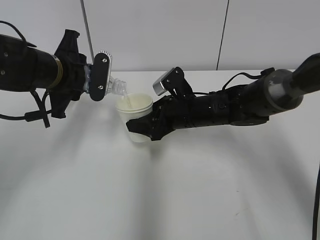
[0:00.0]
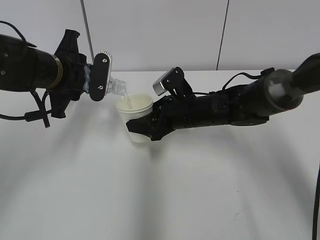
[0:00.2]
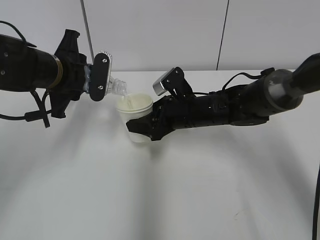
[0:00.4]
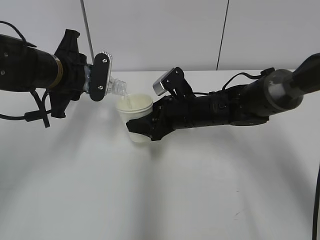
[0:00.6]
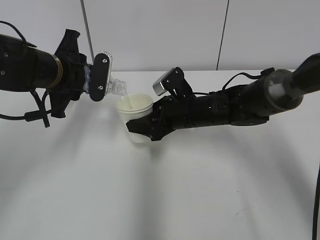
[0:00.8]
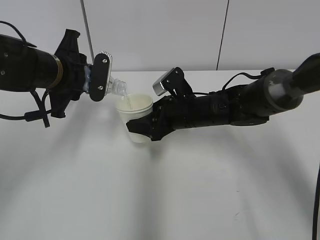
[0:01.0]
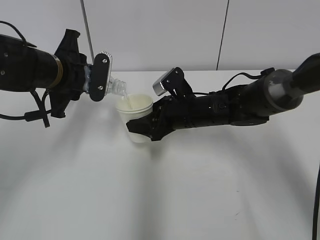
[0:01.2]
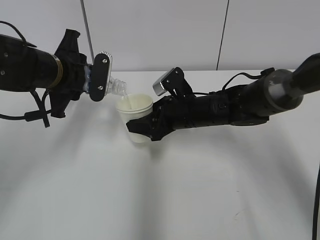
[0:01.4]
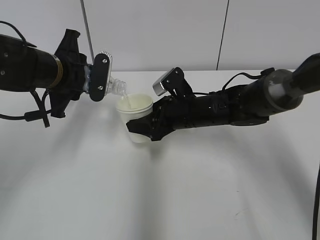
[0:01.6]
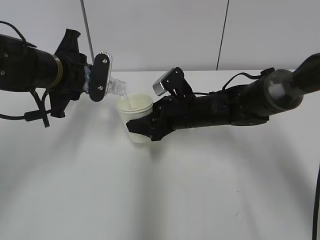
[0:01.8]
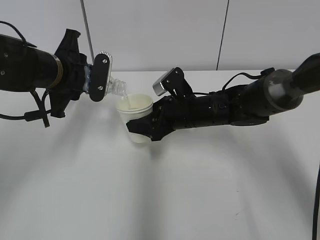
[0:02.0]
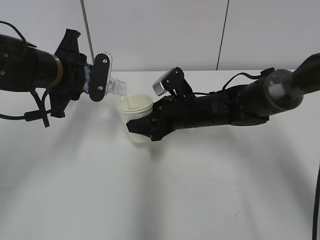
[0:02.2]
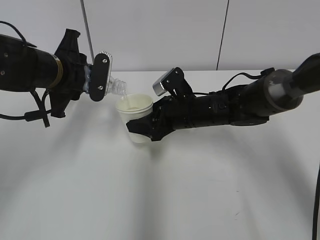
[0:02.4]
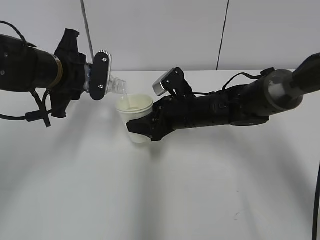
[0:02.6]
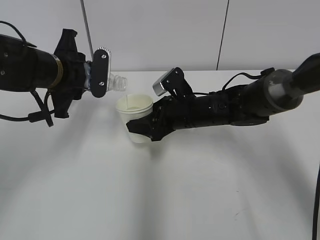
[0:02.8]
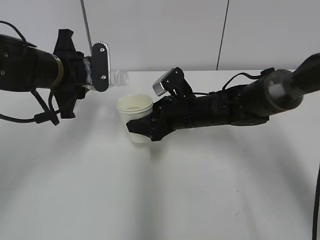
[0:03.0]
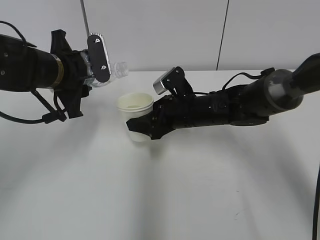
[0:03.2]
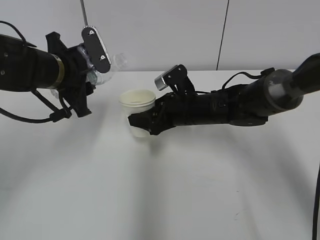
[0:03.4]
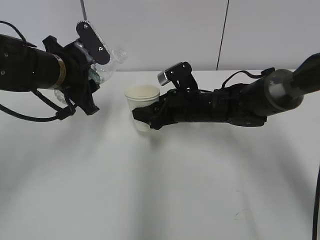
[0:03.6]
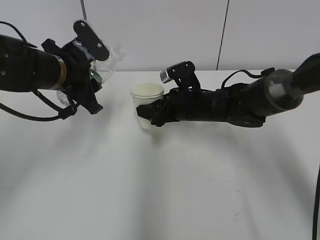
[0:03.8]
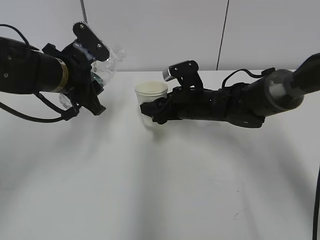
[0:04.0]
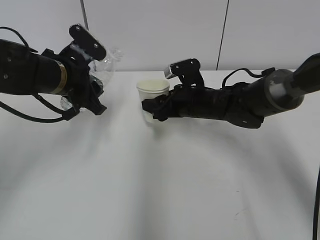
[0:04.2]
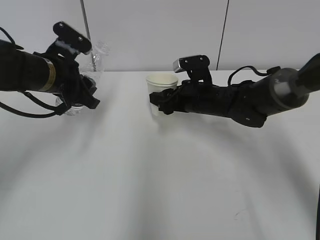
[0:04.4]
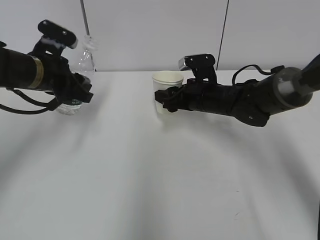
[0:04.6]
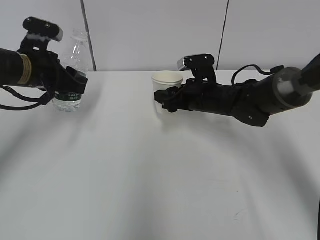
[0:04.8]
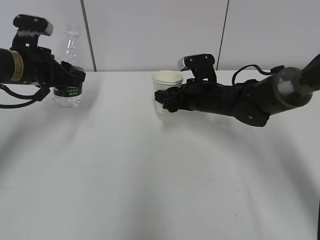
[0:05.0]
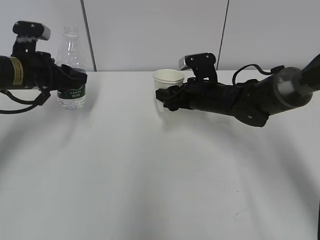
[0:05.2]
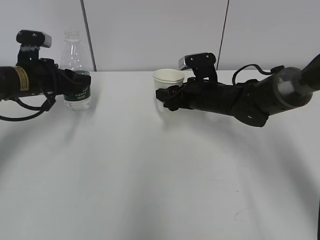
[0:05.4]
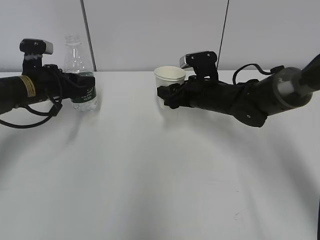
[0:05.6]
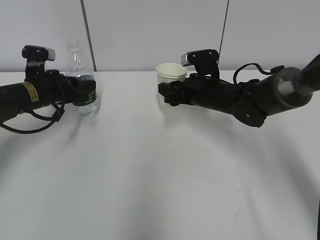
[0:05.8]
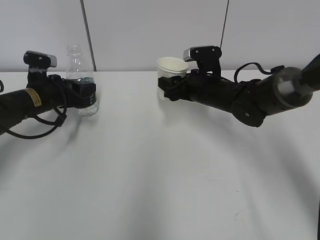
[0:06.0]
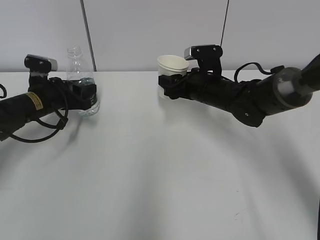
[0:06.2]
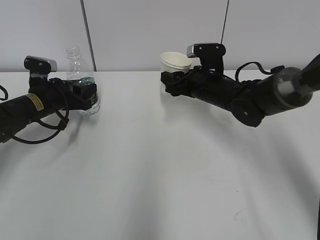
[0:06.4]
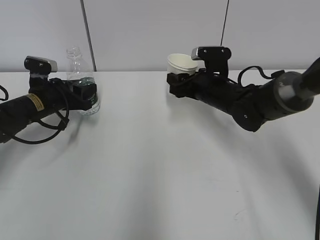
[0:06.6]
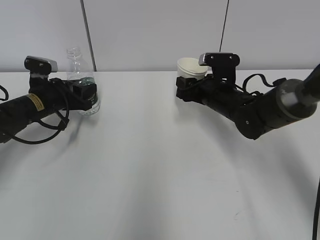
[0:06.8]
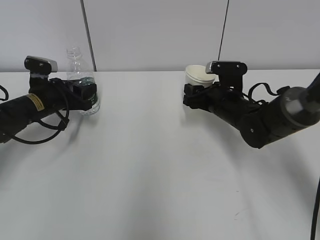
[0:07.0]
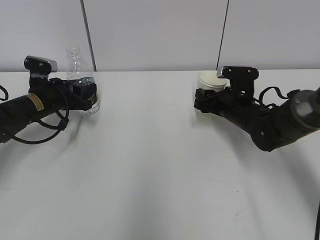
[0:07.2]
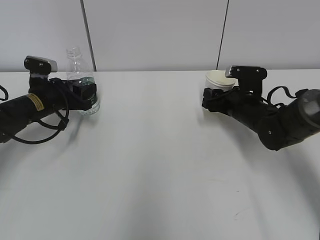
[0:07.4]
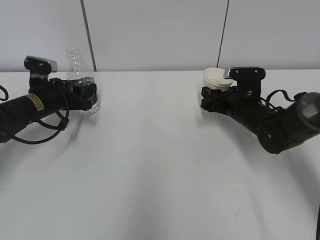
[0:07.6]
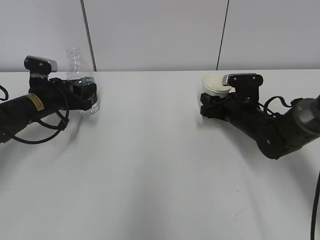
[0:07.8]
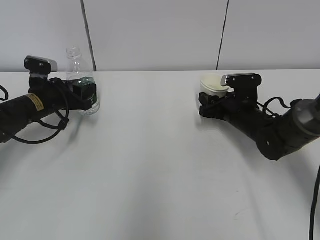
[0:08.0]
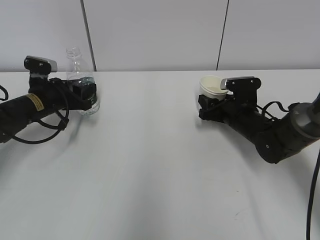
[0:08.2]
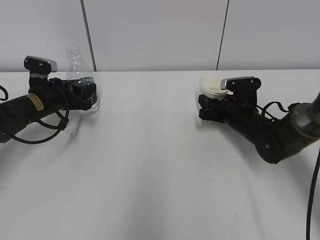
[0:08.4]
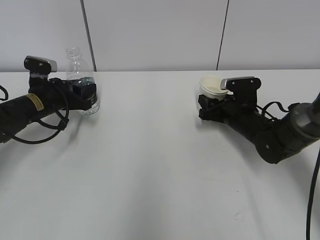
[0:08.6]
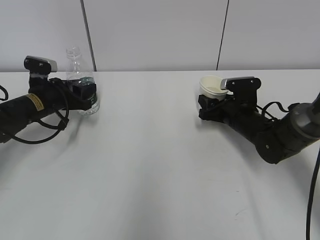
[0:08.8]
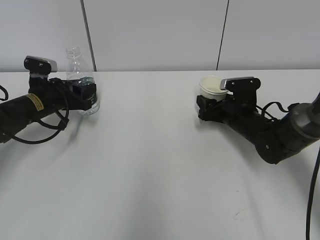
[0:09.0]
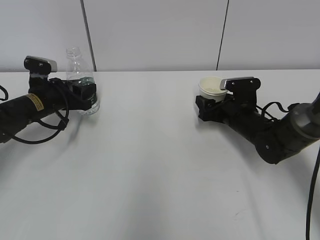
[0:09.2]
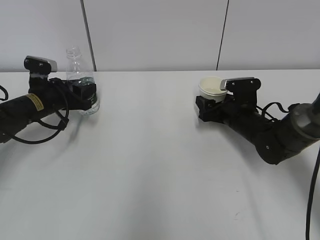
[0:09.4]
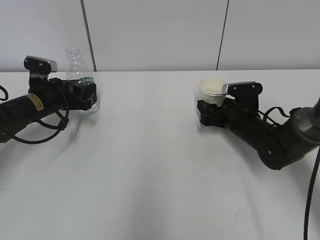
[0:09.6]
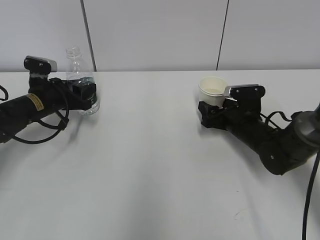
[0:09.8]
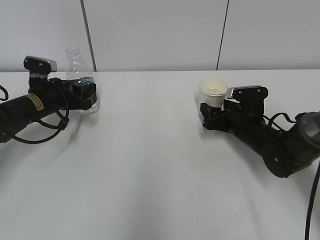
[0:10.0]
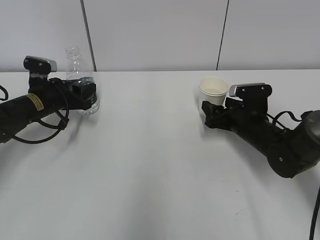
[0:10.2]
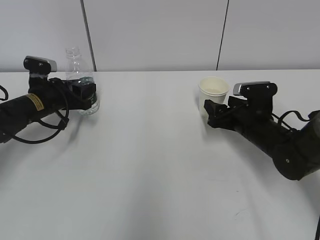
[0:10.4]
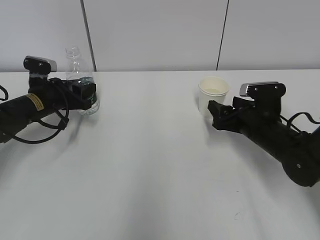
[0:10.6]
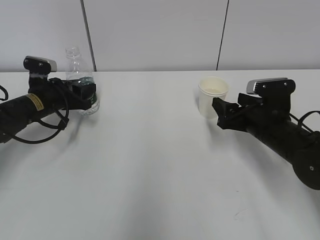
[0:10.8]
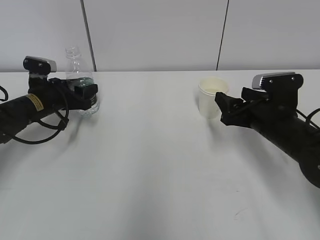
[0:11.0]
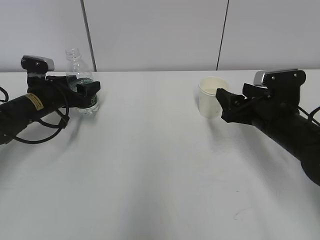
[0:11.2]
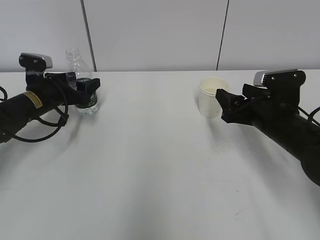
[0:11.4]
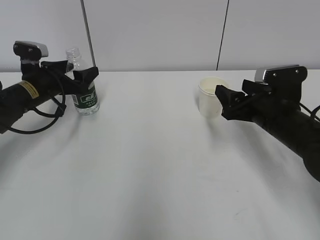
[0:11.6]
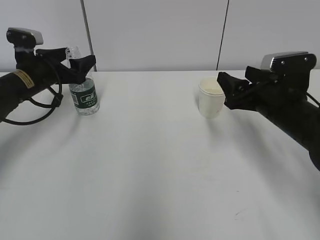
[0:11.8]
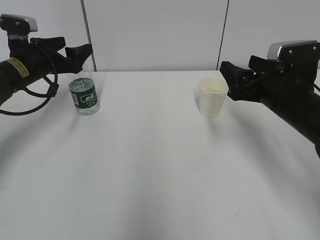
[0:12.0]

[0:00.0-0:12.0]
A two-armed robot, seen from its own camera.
Step, 0.4 to 3.8 s: Place the paper cup with the right hand.
Step, 4.0 to 5.2 s: Place the water bottle with the left hand.
0.0 to 1.6 s: Both grippers stay put.
1.6 to 3.0 s: The grippers stay close to where they were, moving slightly.
4.4 to 6.0 s: The left gripper shifts approximately 10 cm downward and to the left.
6.0 to 7.6 s: The right gripper is displaced to the right by some 5 cm.
7.6 to 9.0 s: The right gripper opens.
9.0 to 10.4 s: There are only small adjustments of the grippers.
10.4 to 12.0 s: The grippers both shift upward by approximately 10 cm. The left gripper opens.

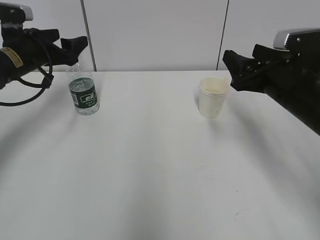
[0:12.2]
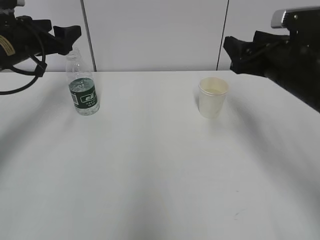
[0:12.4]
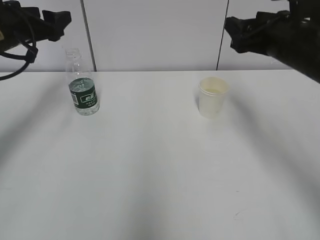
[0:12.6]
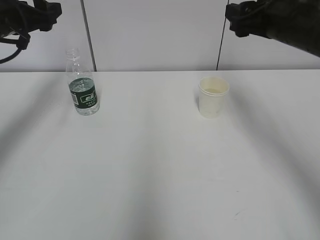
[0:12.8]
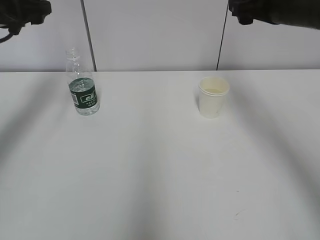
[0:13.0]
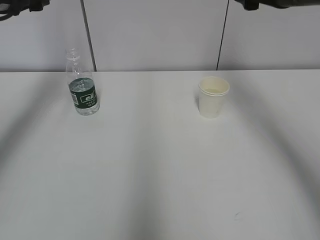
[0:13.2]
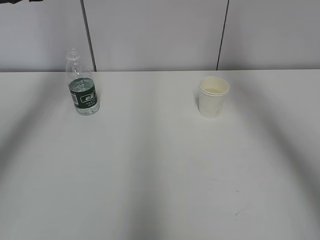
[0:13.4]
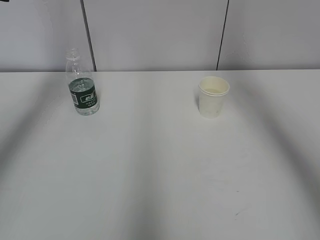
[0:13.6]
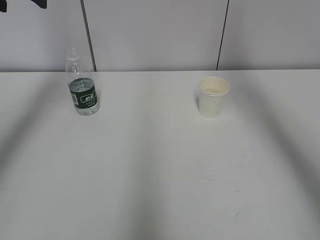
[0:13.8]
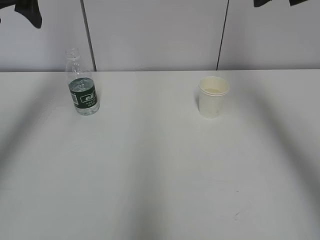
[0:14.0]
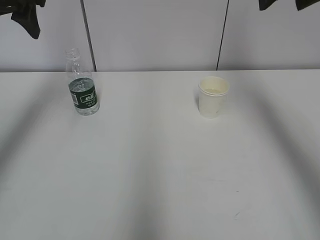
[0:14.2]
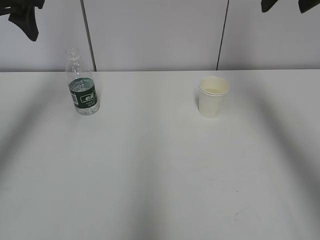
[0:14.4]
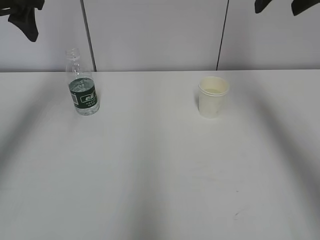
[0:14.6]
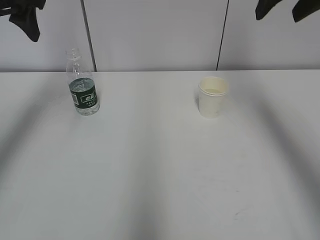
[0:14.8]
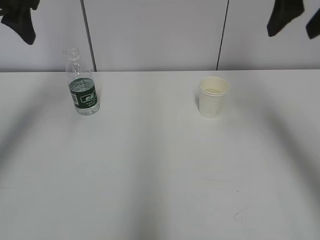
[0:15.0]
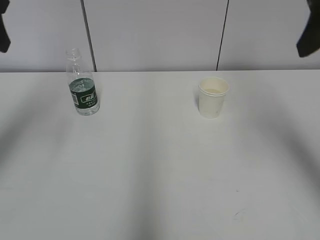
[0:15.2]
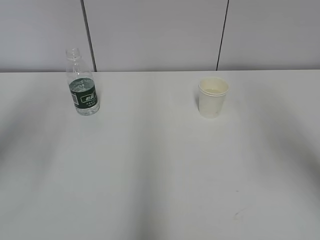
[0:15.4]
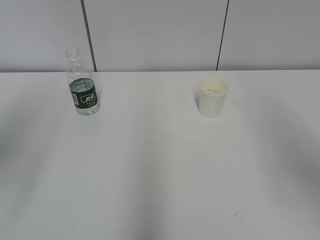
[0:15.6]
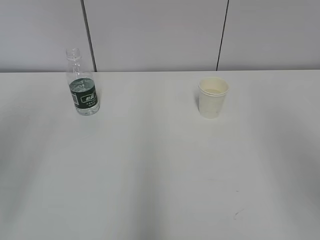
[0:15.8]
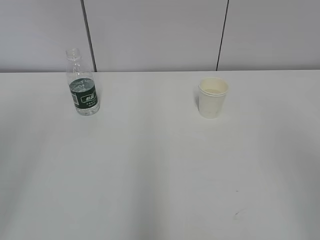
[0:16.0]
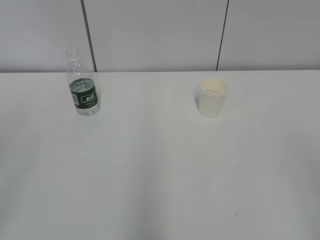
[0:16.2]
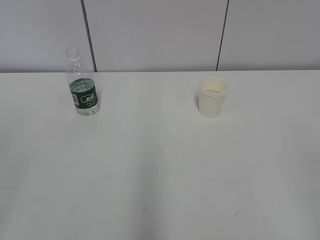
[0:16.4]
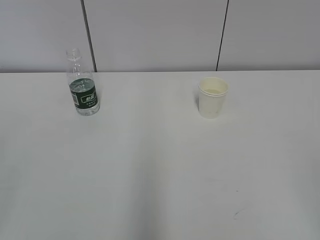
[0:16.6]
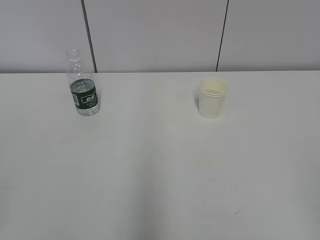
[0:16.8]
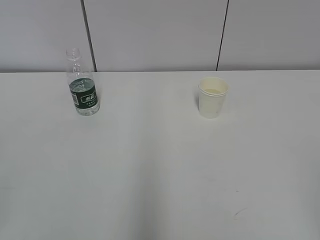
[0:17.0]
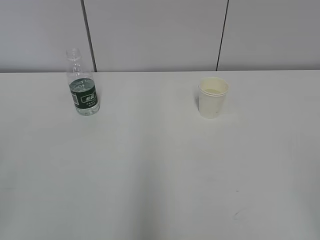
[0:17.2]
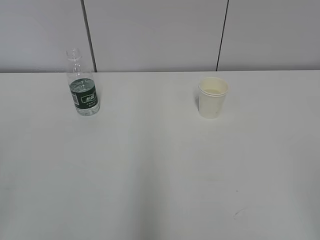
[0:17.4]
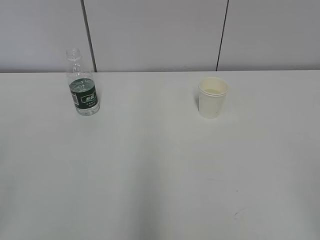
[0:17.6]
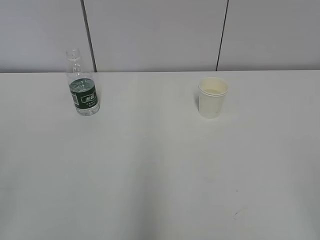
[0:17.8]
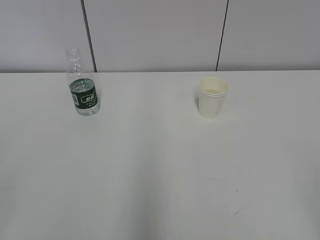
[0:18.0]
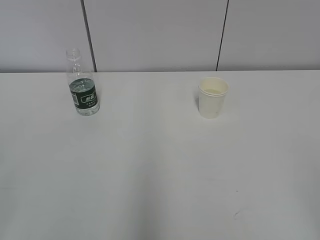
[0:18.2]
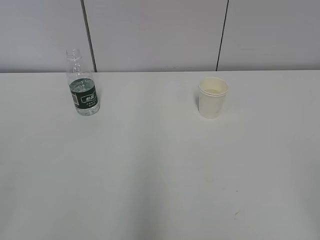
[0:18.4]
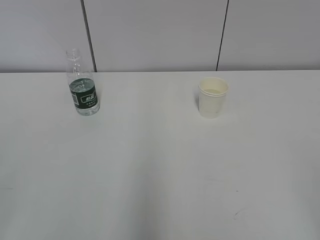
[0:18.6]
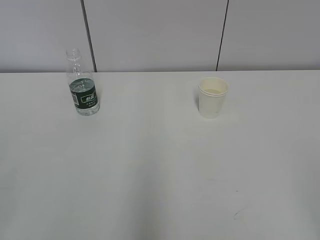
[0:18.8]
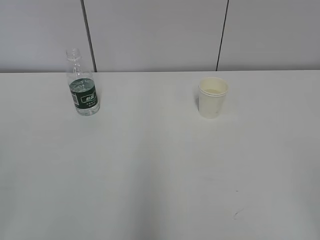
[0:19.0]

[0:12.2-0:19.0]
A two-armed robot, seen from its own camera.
12.2 to 13.6 s: Both grippers travel together upward, roughly 15 cm.
13.6 to 15.0 s: Both grippers move backward, about 5 cm.
15.0 to 16.2 s: Both grippers move backward, roughly 30 cm.

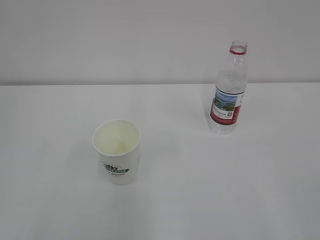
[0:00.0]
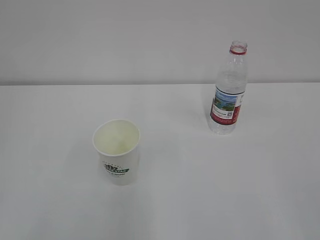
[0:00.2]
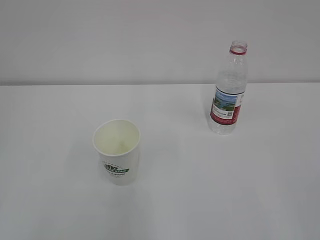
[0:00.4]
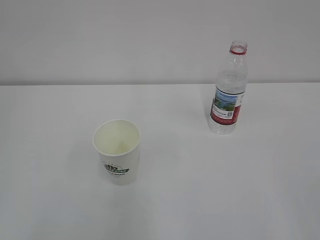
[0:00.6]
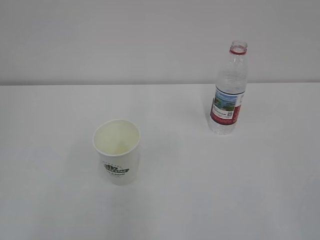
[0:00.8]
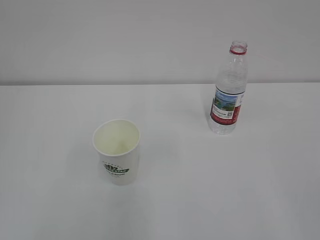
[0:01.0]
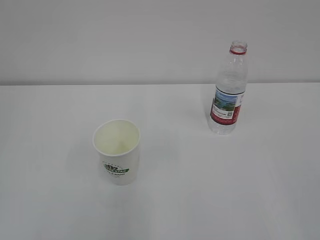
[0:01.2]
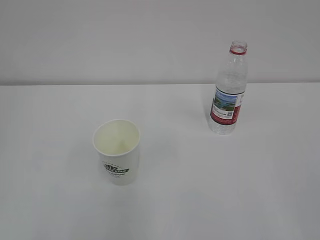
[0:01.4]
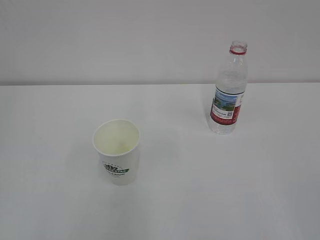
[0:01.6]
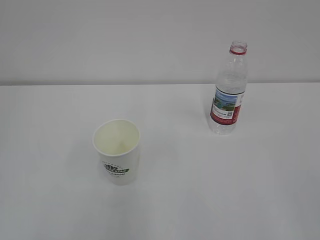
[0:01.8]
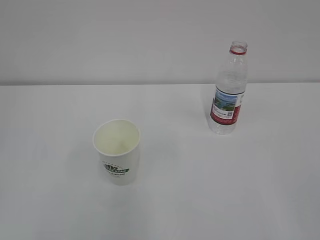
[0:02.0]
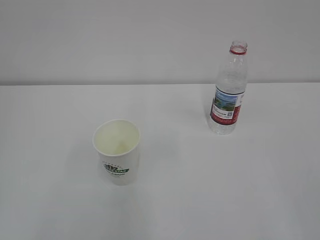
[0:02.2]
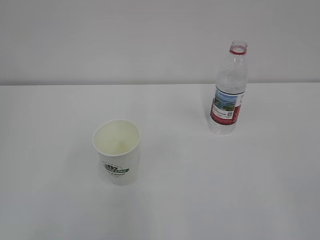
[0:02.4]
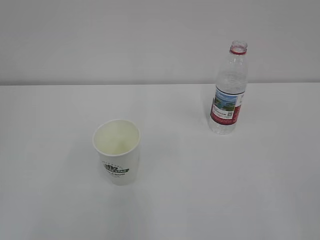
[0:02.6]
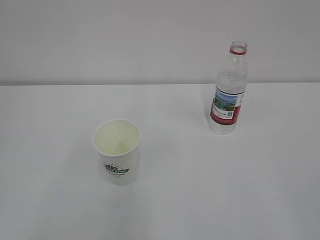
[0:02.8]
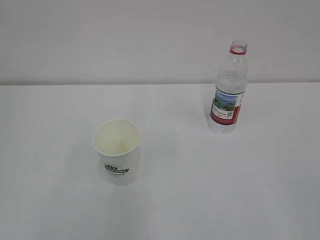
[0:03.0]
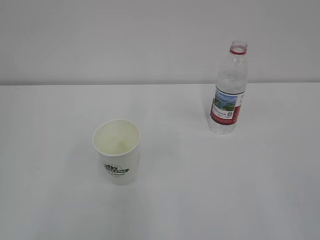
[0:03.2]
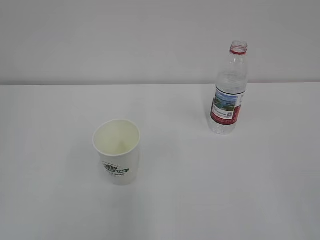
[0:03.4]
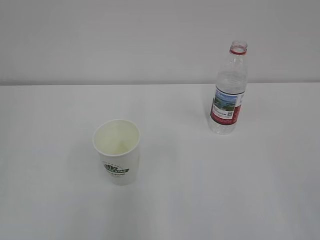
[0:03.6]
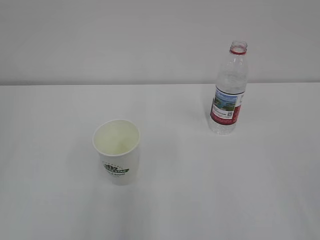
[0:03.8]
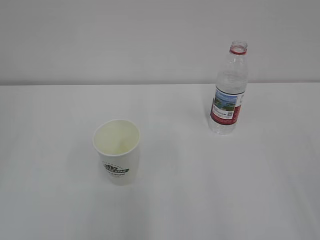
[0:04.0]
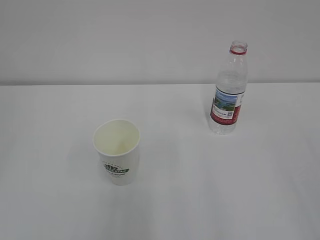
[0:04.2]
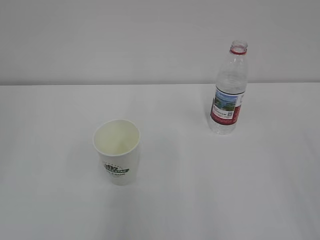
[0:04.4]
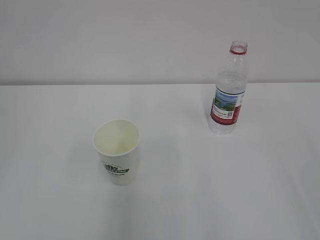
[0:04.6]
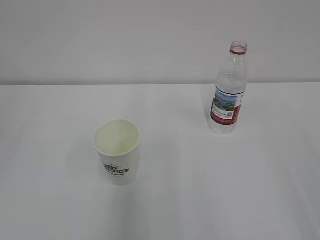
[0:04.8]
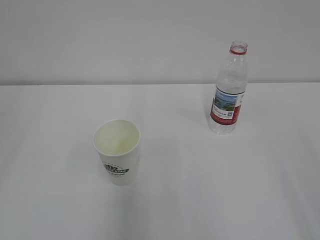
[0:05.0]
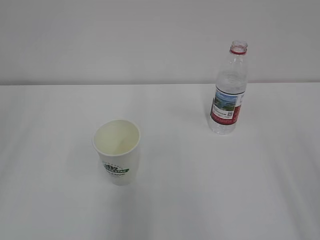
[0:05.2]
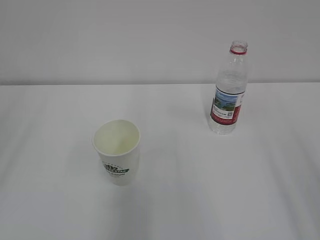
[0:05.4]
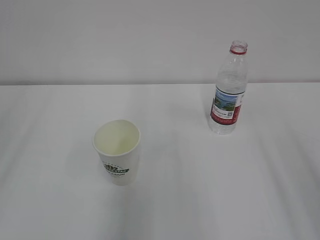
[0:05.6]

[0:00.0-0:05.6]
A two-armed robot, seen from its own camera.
1.4 to 2.8 s: Both grippers stay put.
